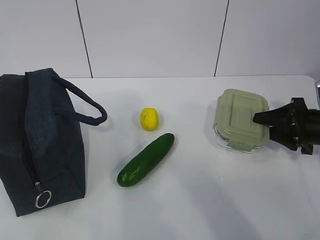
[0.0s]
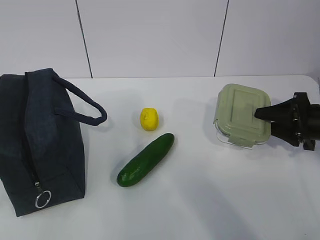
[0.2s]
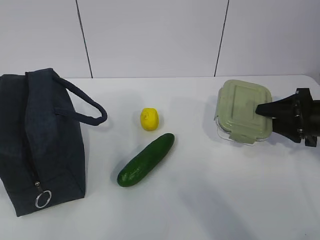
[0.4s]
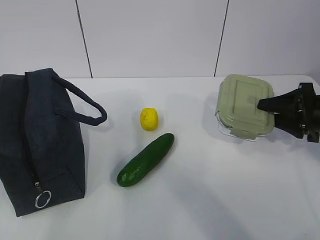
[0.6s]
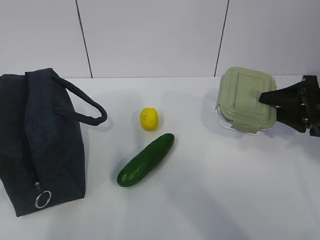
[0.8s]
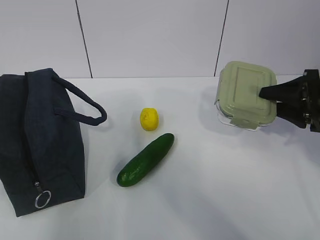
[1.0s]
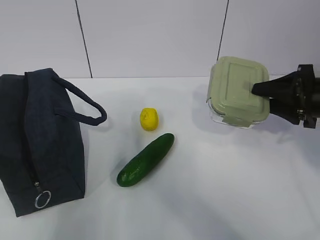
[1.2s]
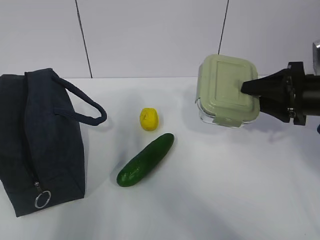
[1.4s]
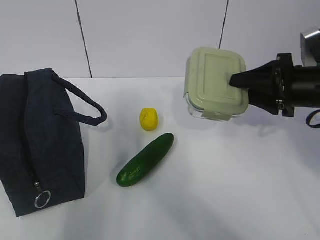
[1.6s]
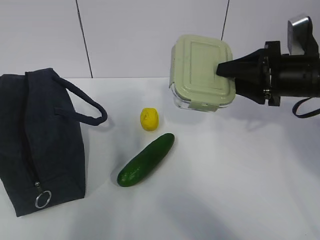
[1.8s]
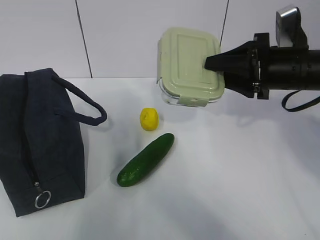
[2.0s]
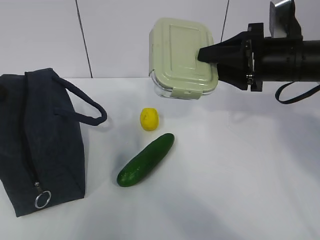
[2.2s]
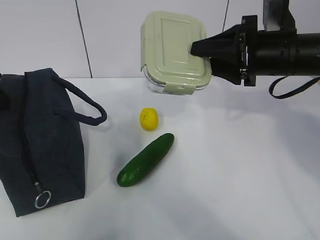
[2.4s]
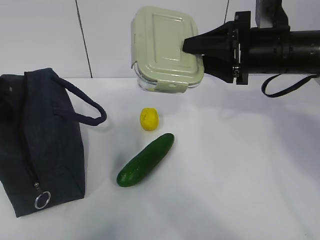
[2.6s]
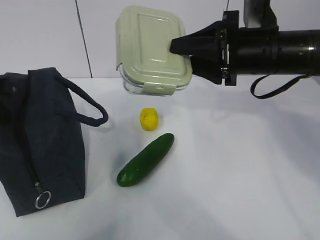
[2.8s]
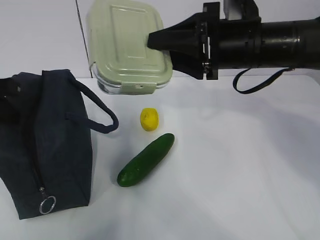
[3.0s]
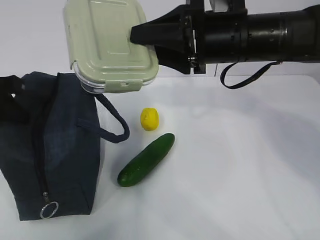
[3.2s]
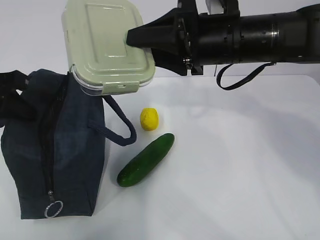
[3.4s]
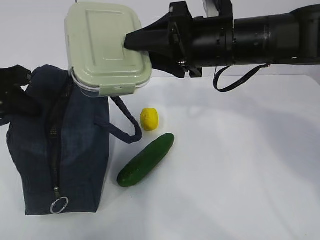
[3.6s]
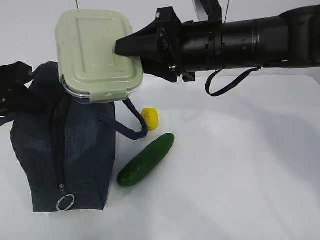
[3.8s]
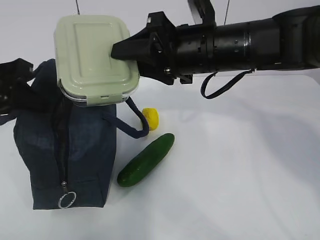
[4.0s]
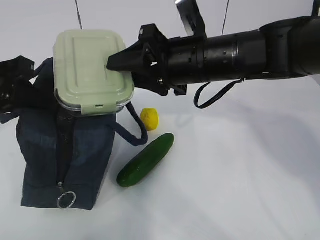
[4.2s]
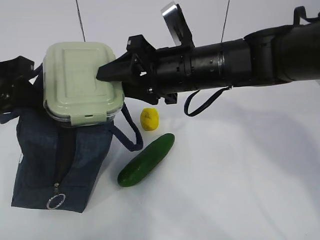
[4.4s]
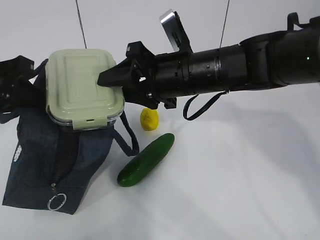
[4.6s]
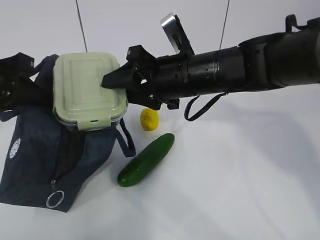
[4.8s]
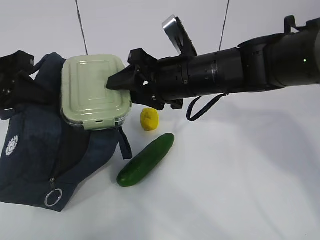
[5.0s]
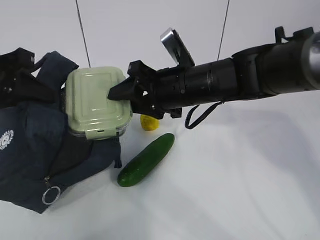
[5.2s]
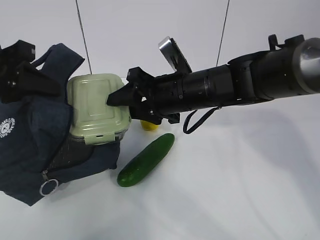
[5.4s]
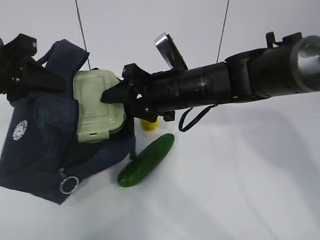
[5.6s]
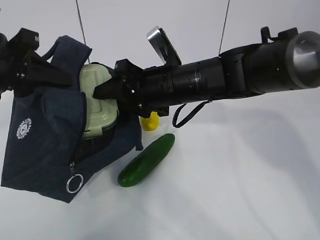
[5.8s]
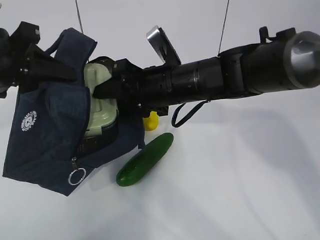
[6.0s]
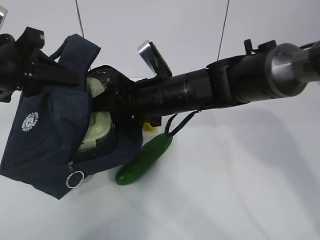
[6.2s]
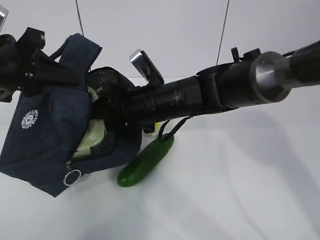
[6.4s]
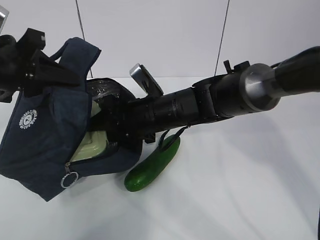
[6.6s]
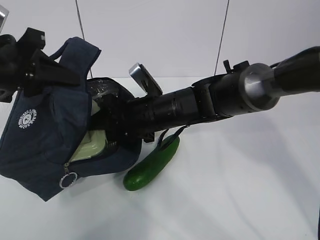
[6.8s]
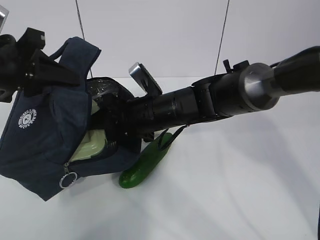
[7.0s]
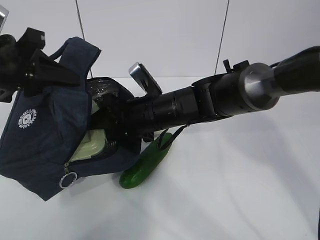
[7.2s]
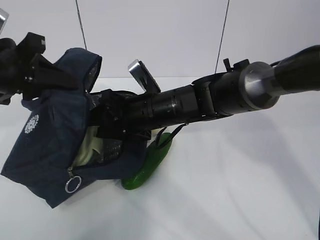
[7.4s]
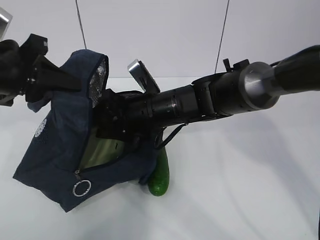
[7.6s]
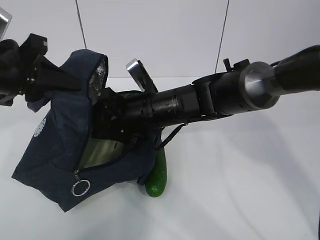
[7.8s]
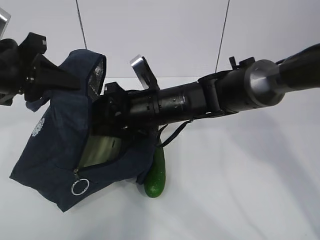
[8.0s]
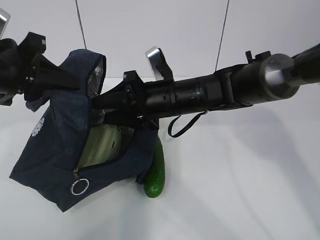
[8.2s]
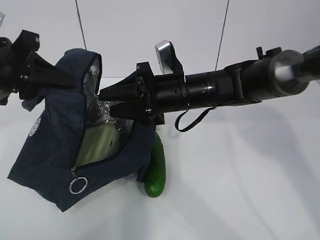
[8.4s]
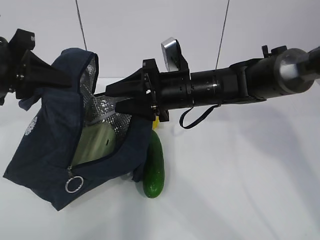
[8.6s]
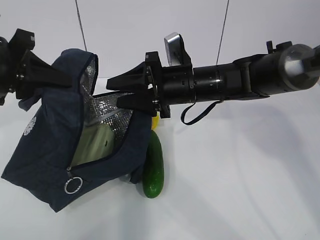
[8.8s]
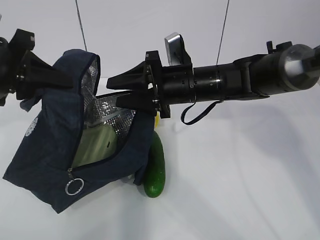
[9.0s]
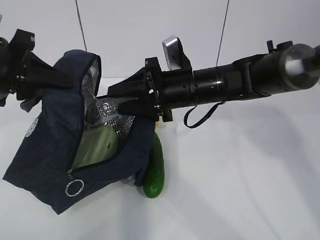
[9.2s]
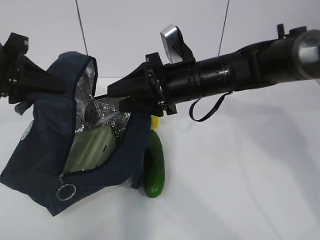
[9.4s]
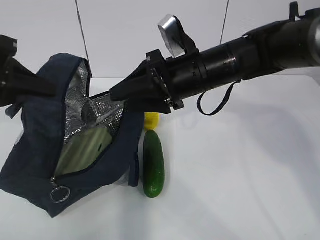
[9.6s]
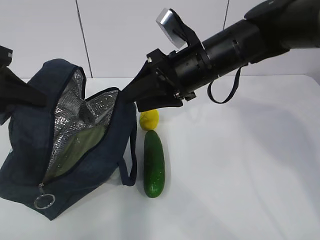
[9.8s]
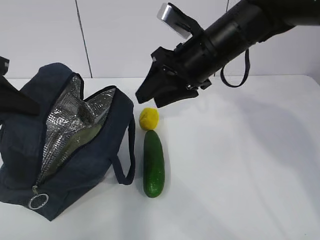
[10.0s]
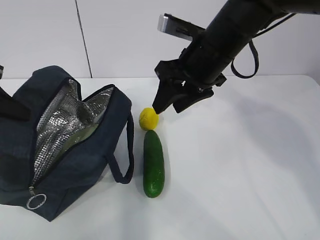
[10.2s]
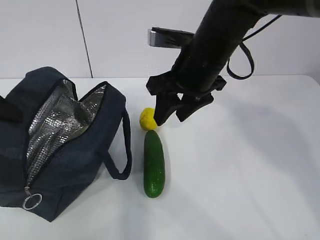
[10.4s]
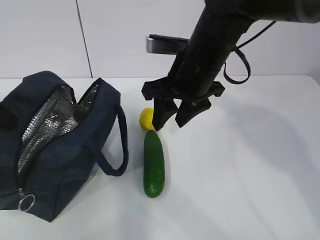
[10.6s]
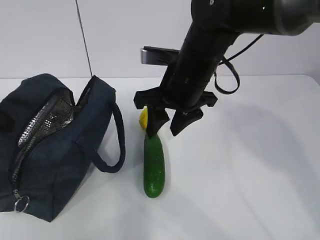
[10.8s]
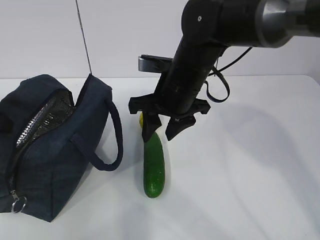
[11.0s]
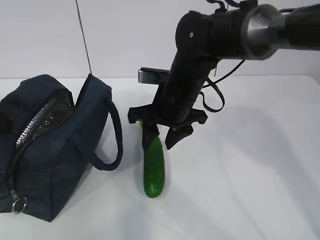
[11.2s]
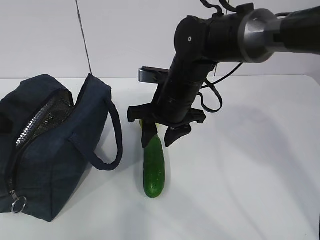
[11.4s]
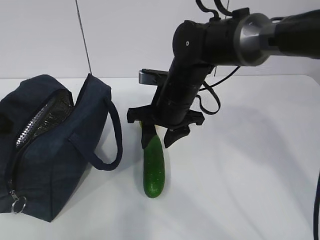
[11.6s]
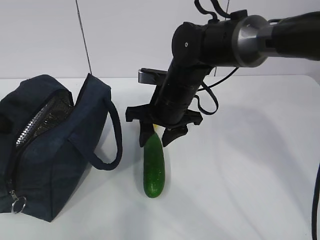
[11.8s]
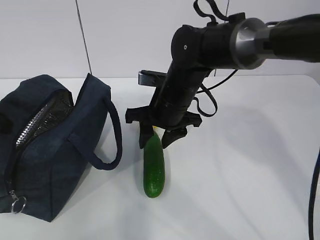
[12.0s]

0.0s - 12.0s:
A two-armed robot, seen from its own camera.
Step, 1.0s - 3.8s: Place it into the bag with your right hand.
Step, 4.0s - 9.2s: Grab the cucumber with your right hand.
0.0s - 1.6s: The right gripper travels upward and to the left by roughly 10 cm; the left gripper is displaced forward by approximately 15 cm, and opens up.
1.6s - 3.0s: The right gripper travels to the left and upward by some 15 cm; the left gripper goes approximately 10 cm forward, and closes.
3.0s - 4.4s: The right gripper is displaced to the left by roughly 10 cm.
6.0s - 7.6s: The right gripper heads downward, covering roughly 5 cm.
7.6s - 9.0s: The right gripper travels to the right by about 5 cm.
9.0s - 10.4s: The left gripper moves to the left, about 5 cm; the right gripper goes about 5 cm upward.
10.4s - 12.0s: The right gripper moves downward, roughly 10 cm.

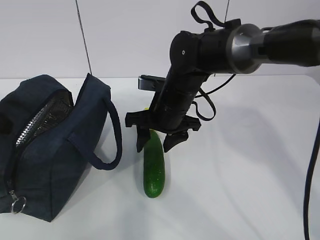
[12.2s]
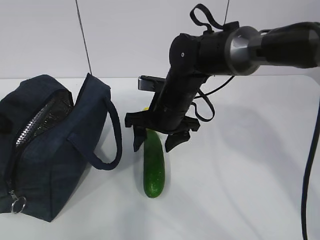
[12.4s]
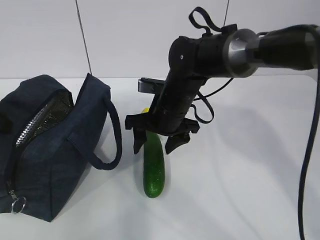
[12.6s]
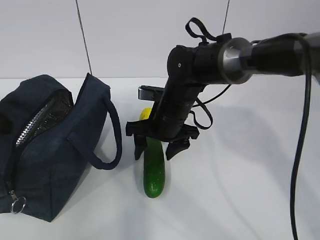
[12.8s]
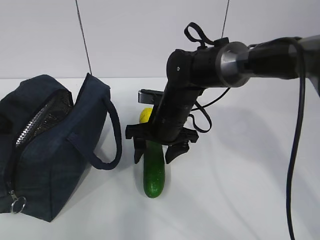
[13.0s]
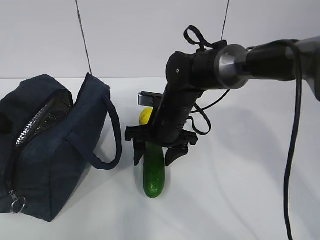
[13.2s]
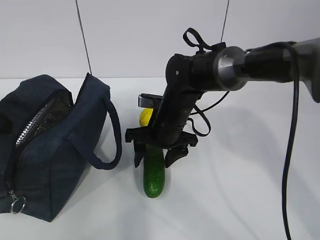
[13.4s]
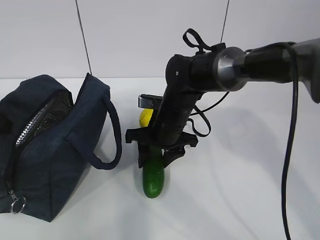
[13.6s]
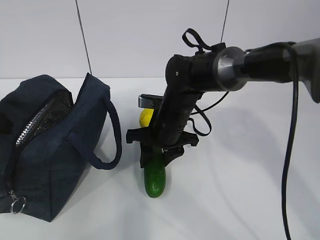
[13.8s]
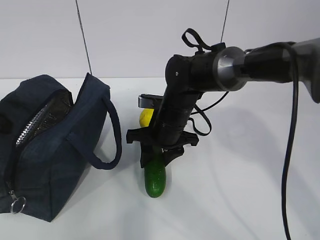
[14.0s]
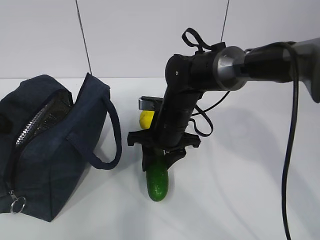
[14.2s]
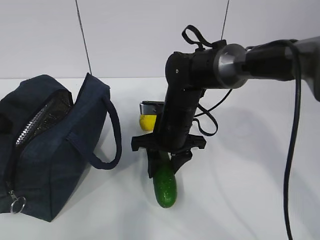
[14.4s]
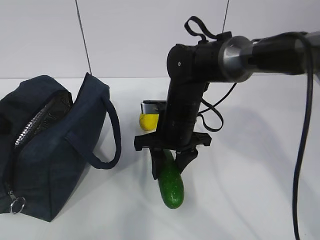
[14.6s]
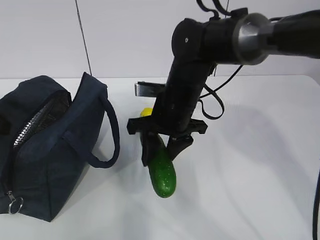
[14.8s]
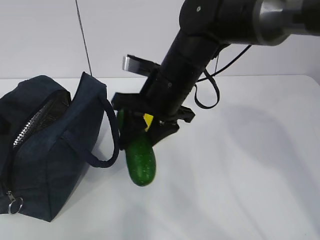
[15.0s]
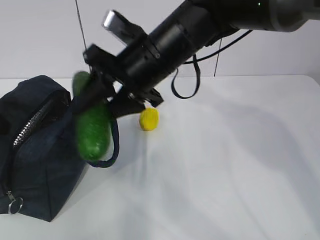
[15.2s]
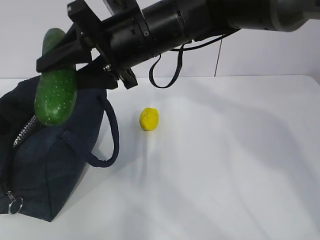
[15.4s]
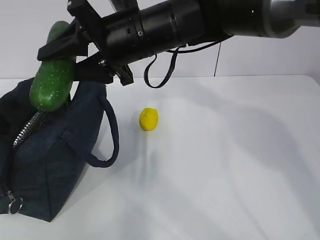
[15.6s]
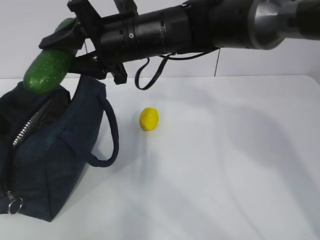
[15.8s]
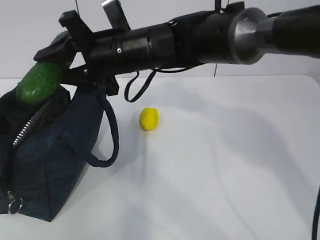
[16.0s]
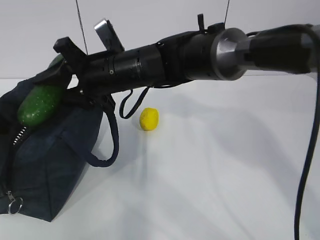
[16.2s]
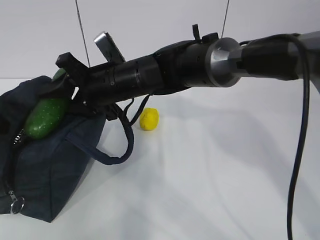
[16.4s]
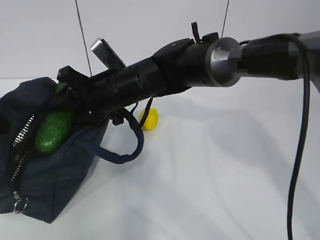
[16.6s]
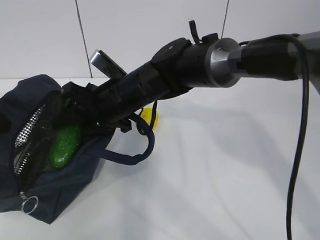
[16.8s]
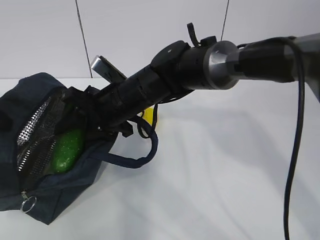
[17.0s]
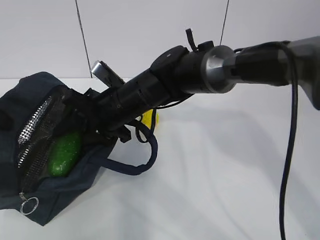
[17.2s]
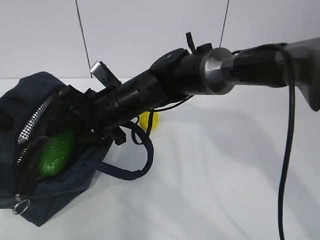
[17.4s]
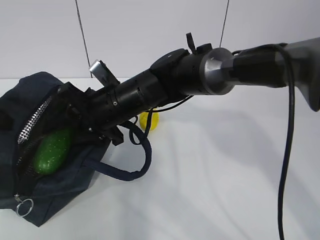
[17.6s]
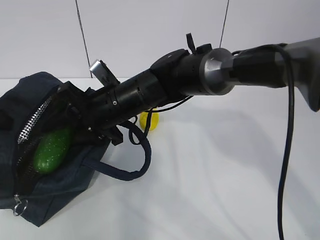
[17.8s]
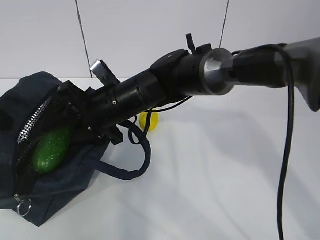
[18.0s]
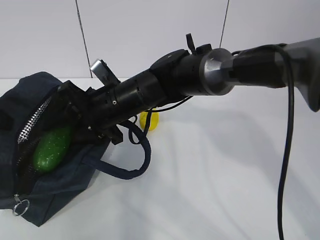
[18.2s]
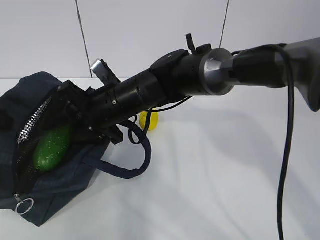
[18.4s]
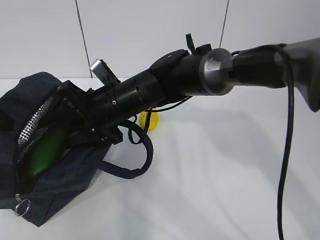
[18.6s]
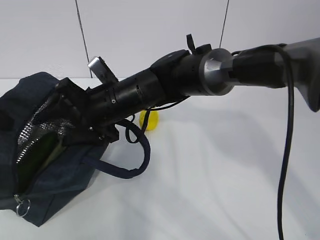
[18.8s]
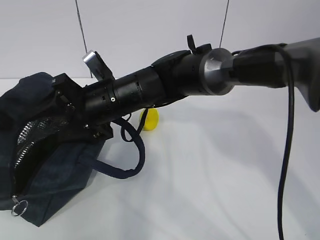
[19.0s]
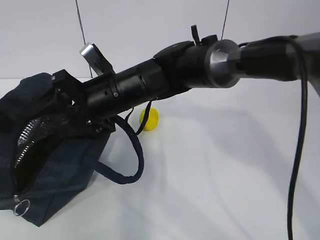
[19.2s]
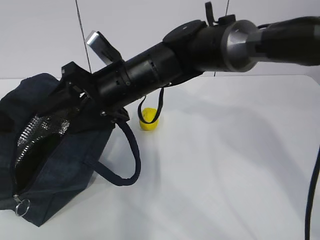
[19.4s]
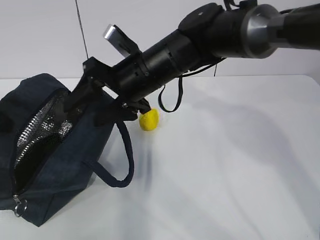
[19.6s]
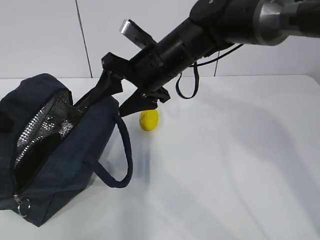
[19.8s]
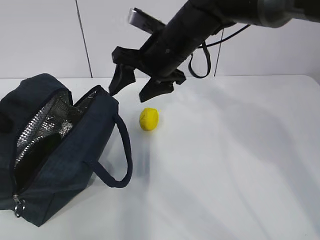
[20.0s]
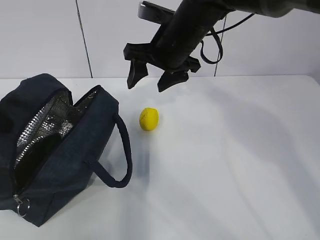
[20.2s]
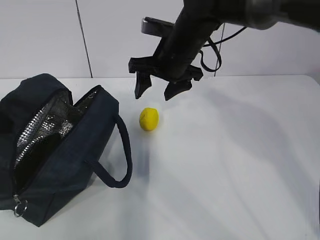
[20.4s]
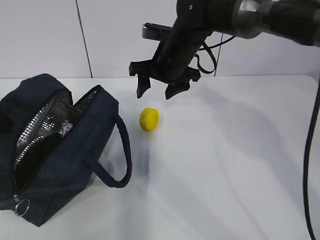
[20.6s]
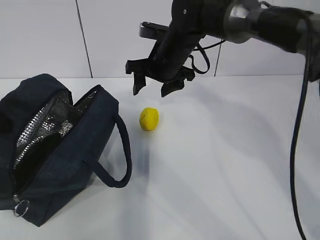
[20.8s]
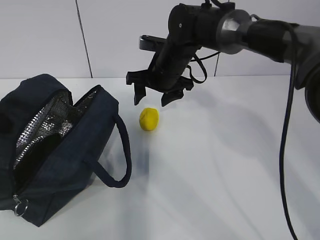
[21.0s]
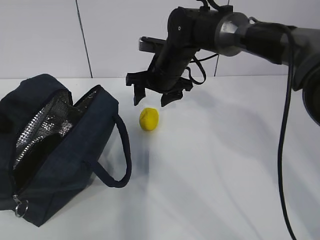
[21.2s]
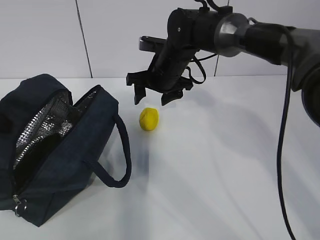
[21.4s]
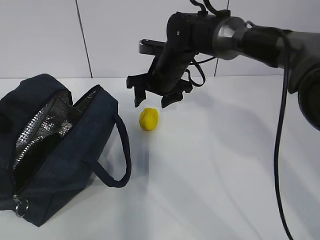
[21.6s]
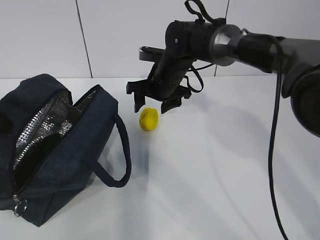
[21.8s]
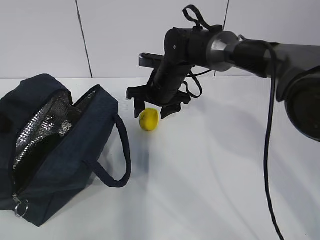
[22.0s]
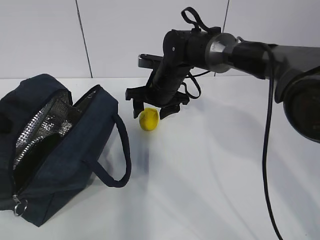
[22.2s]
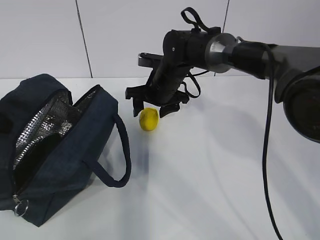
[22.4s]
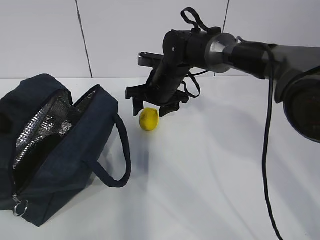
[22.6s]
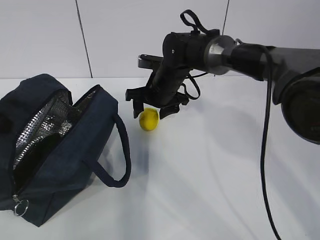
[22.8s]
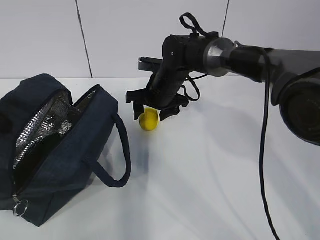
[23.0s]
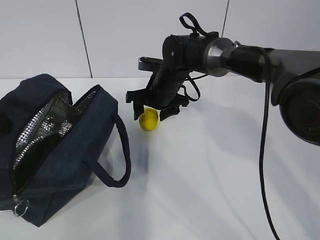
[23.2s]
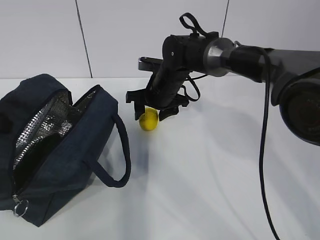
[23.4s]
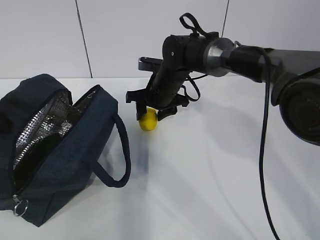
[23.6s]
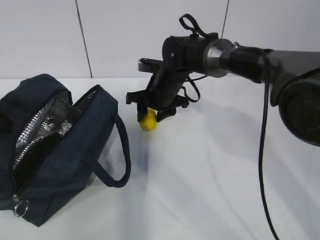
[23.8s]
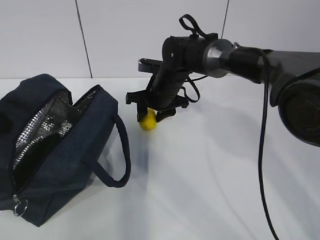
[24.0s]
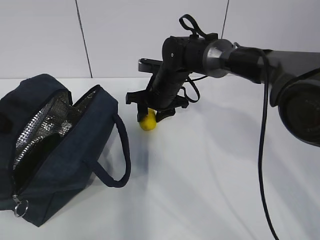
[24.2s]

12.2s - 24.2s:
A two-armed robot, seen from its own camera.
Step, 13.4s - 18.2s: Grab the lemon with your right hand.
Step, 21.6s - 23.4s: Grab the lunch bag with your right hand.
12.2s - 13.8s: The grippers make only small movements.
13.8s - 15.2s: The right gripper travels upward by approximately 15 cm.
15.2s - 16.6s: The right gripper heads downward and to the left, covering about 10 cm.
16.6s - 18.2s: There are only small adjustments of the grippers.
18.2s - 19.8s: The right gripper moves to the right and upward, roughly 10 cm.
19.8s - 21.2s: The right gripper heads forward and downward, covering some 10 cm.
21.2s - 22.6s: The grippers make only small movements.
22.6s - 24.2s: Both grippers stay put.
